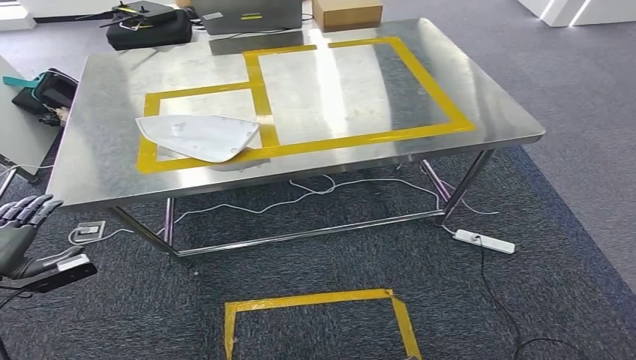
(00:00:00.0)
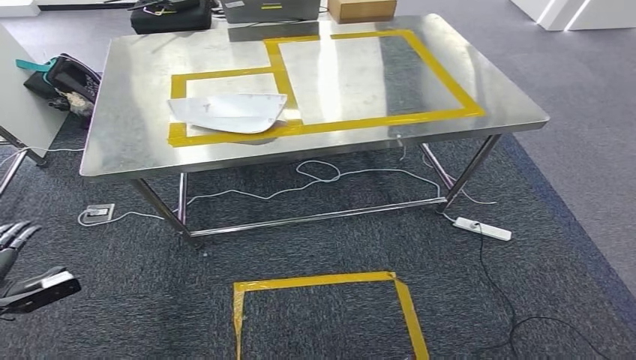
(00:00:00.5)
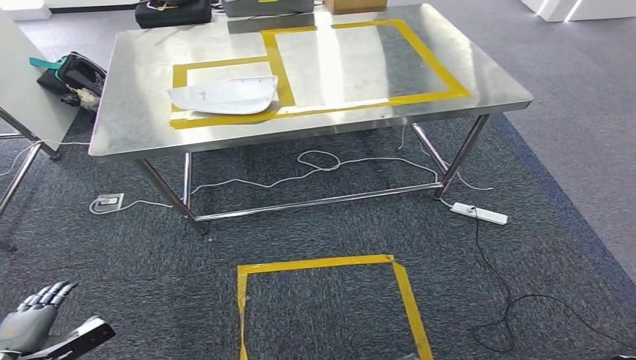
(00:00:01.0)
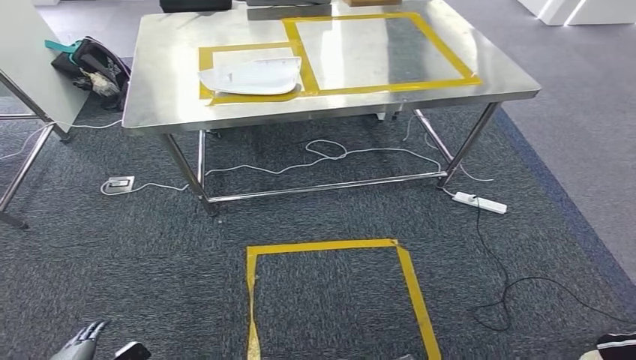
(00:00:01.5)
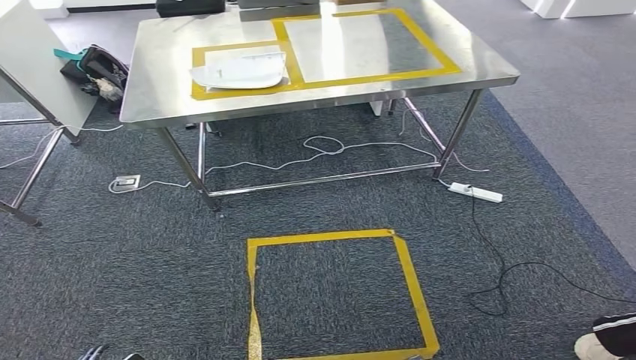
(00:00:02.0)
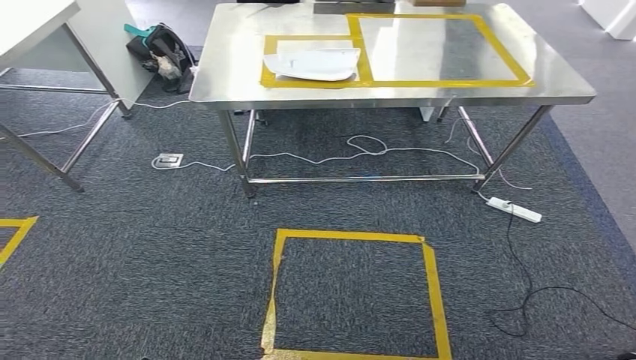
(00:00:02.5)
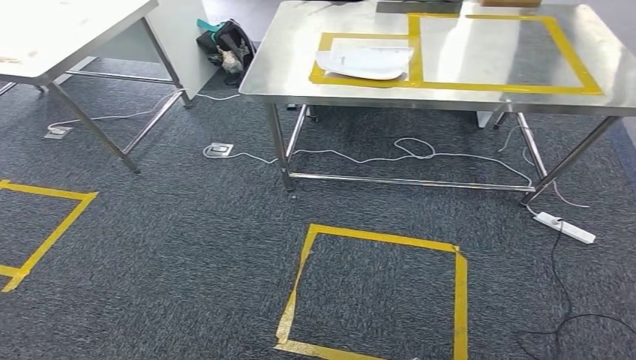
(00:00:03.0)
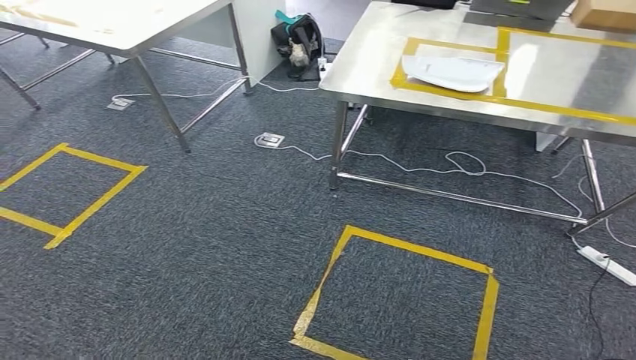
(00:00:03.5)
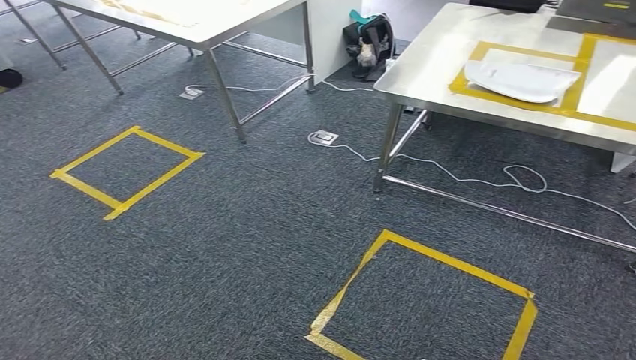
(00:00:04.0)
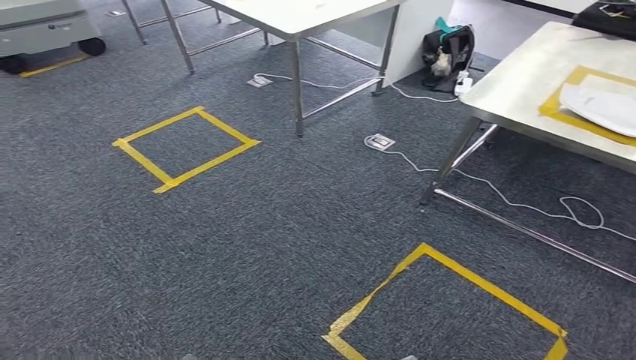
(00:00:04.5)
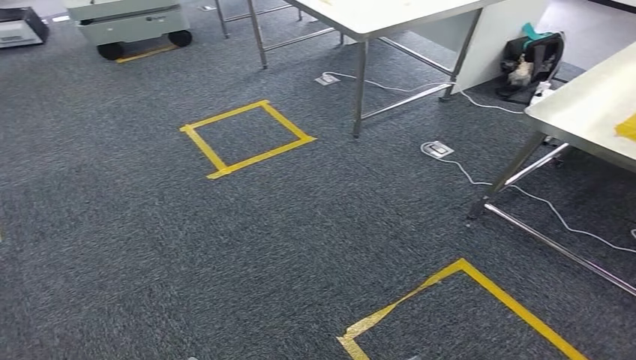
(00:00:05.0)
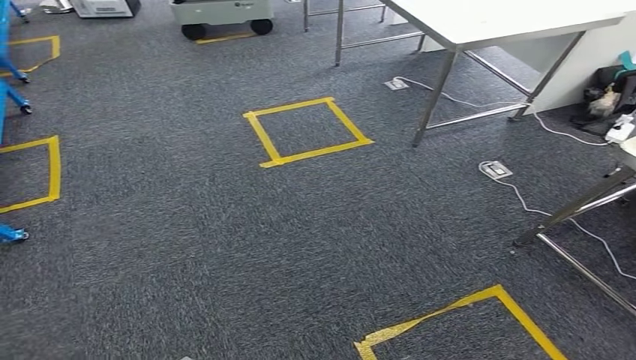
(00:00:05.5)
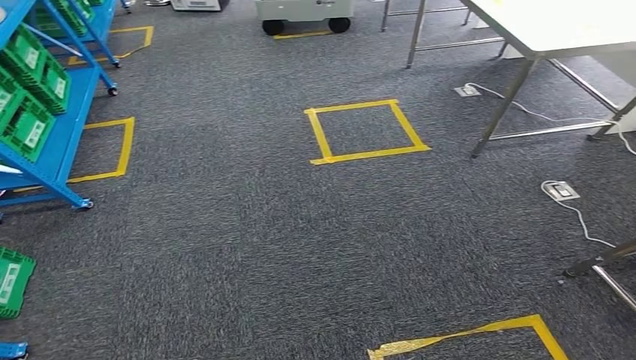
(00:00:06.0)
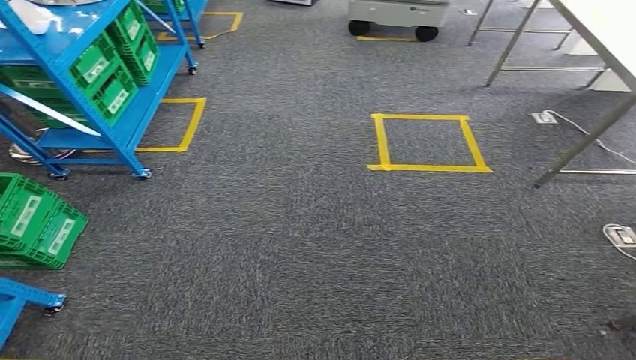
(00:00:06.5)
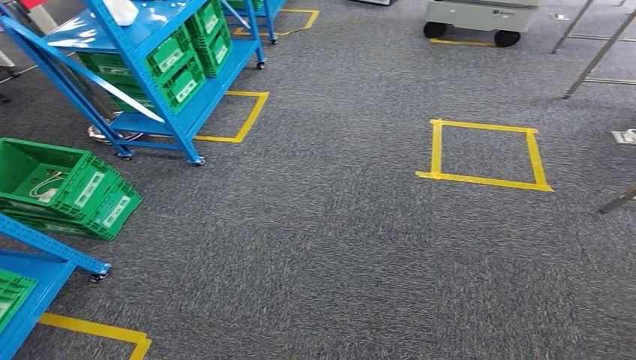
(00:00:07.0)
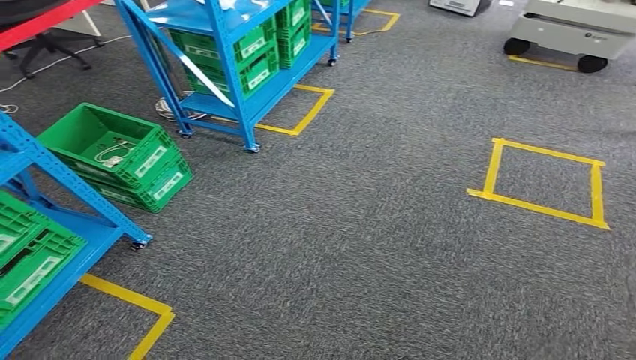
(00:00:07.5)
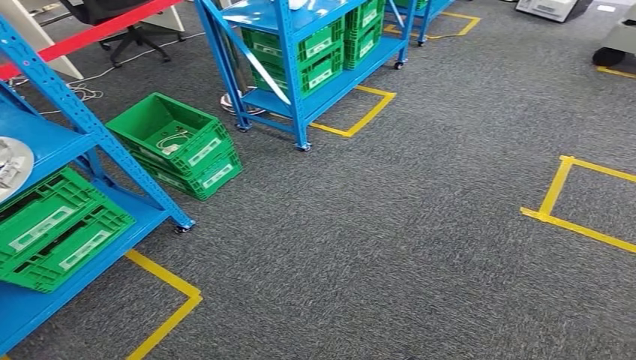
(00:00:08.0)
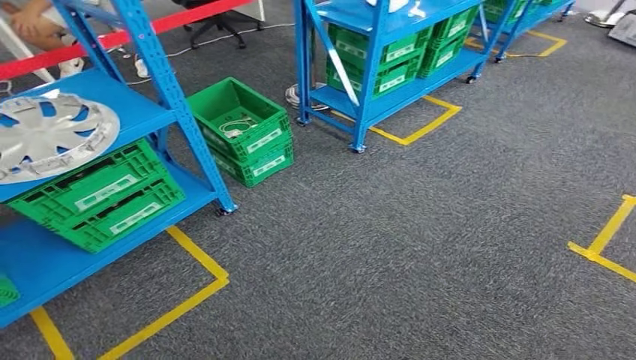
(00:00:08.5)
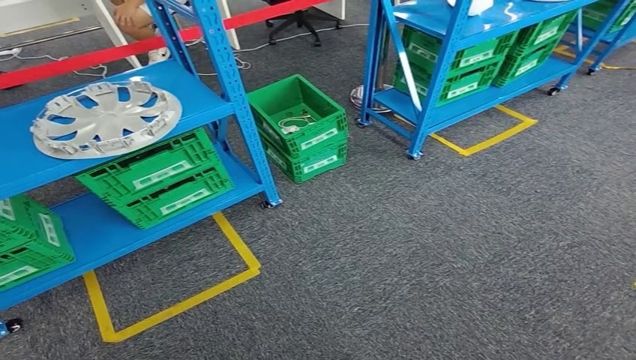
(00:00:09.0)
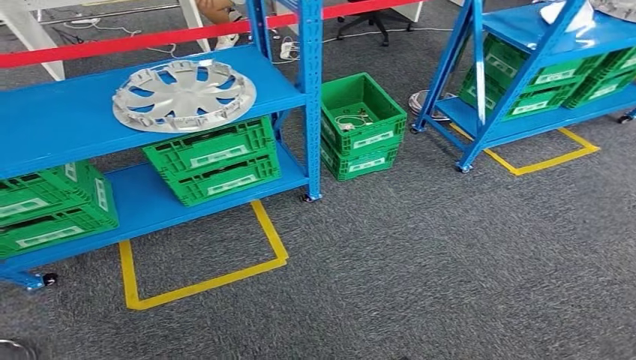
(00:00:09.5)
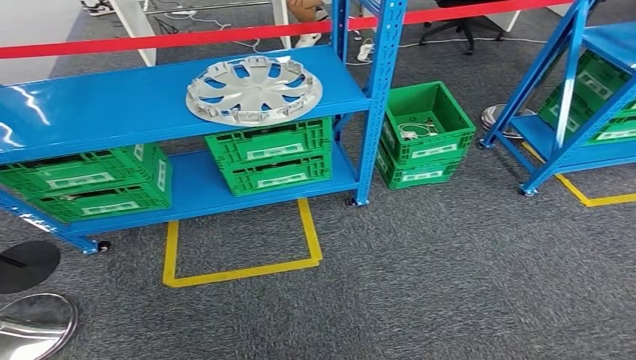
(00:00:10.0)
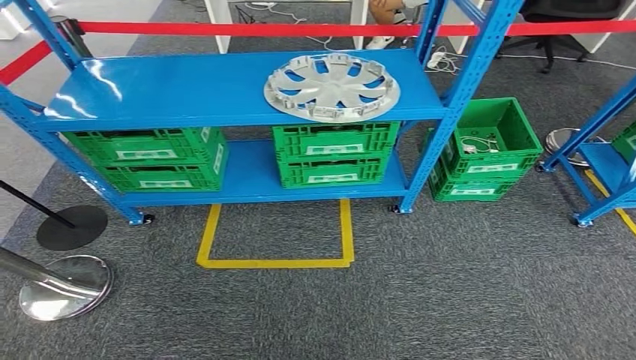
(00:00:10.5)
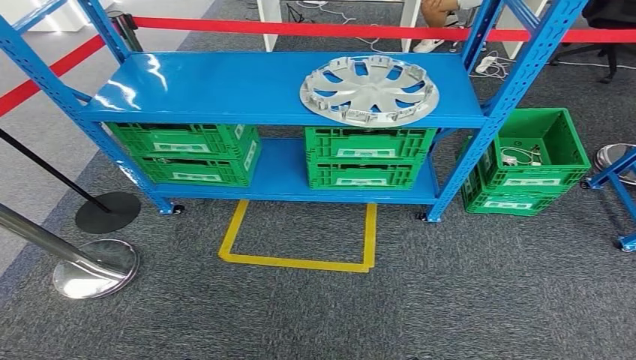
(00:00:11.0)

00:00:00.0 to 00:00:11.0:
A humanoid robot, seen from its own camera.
Step, 00:00:00.0 to 00:00:11.0: Return to the initial position at the workbench.

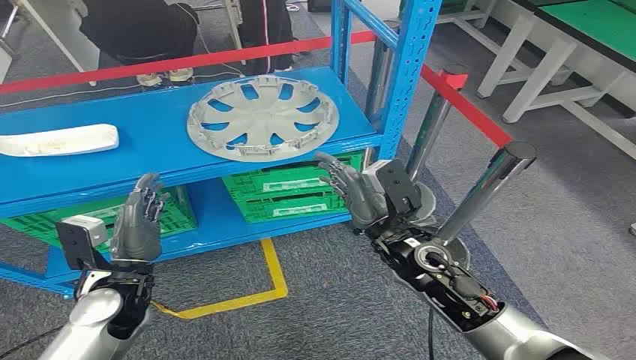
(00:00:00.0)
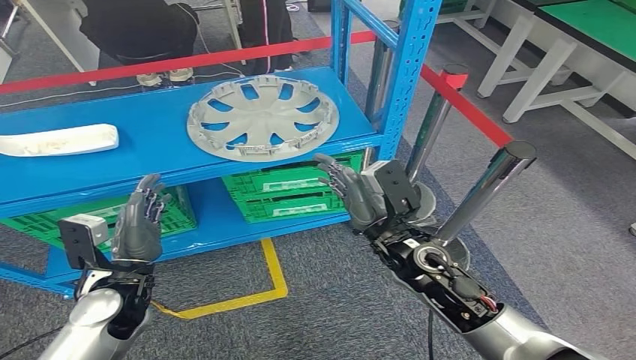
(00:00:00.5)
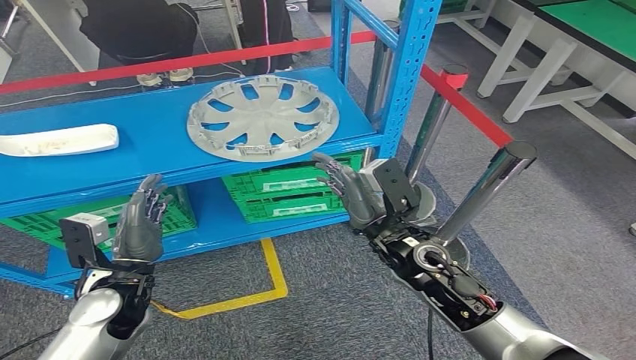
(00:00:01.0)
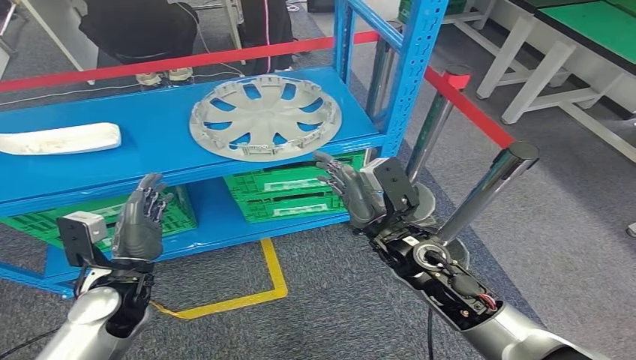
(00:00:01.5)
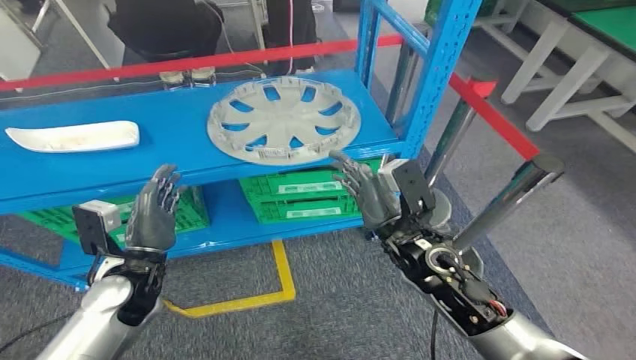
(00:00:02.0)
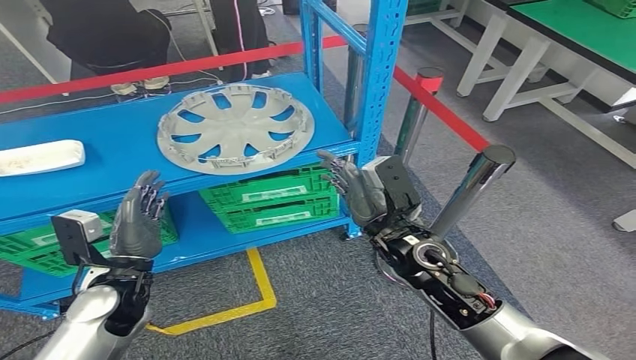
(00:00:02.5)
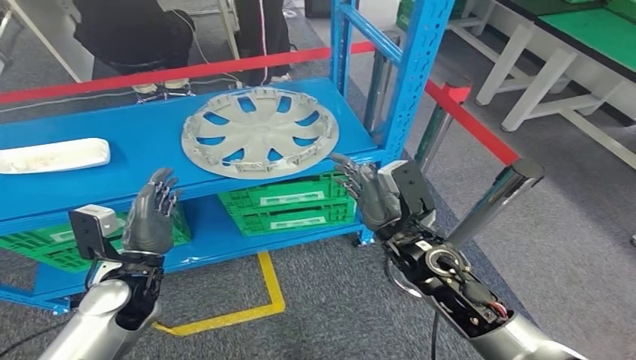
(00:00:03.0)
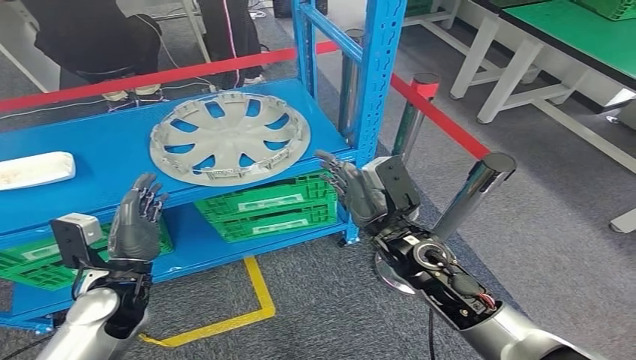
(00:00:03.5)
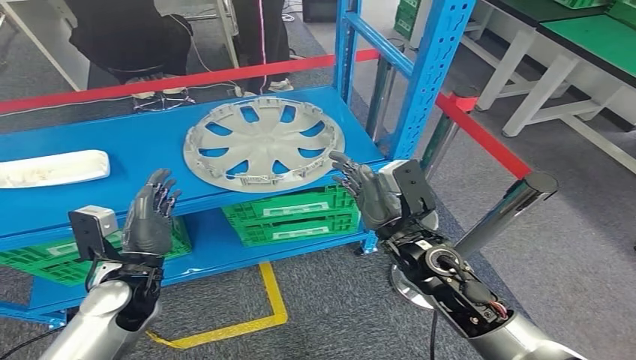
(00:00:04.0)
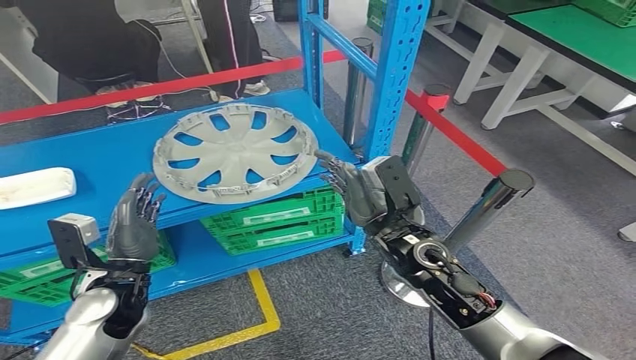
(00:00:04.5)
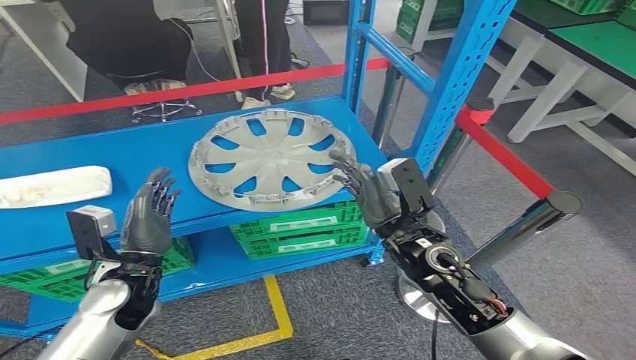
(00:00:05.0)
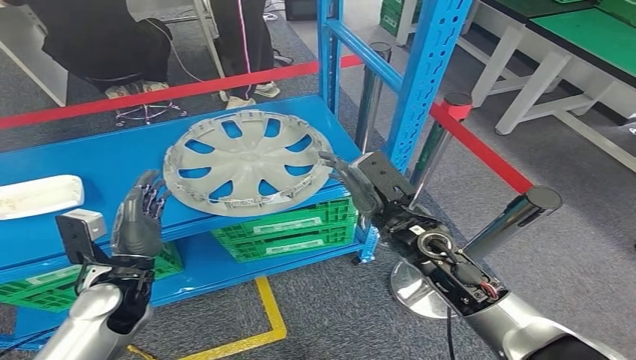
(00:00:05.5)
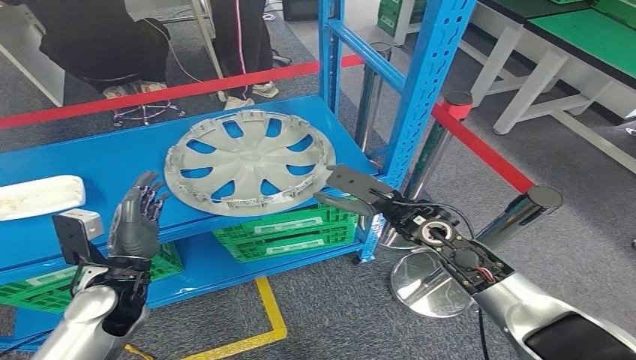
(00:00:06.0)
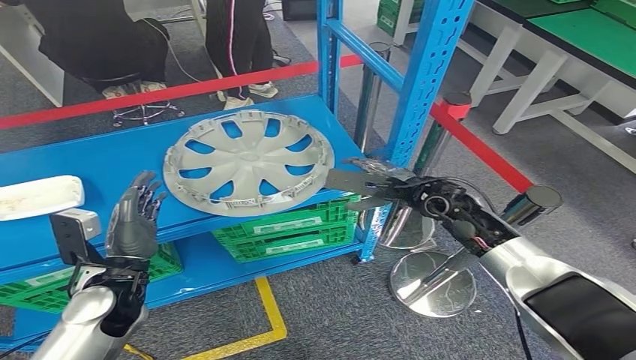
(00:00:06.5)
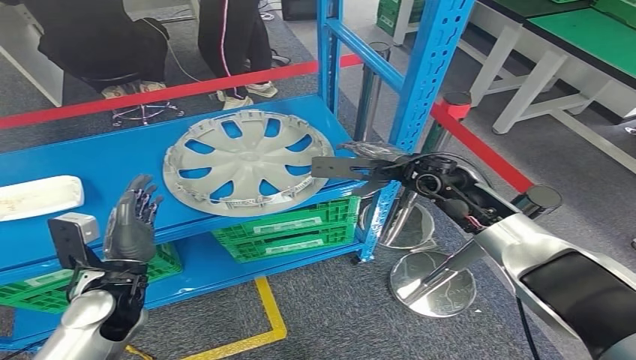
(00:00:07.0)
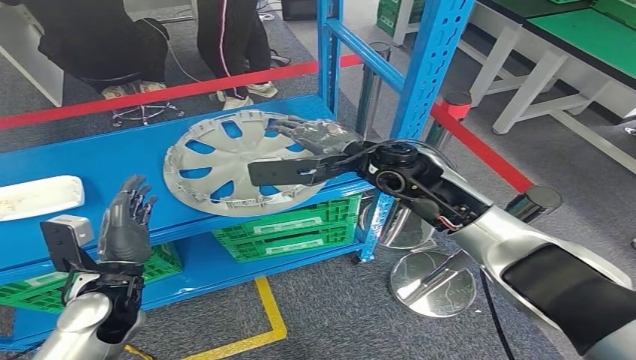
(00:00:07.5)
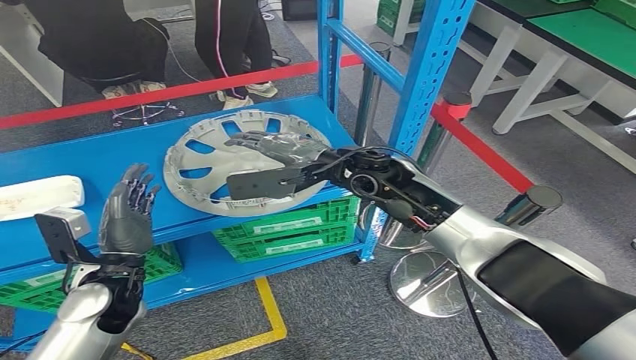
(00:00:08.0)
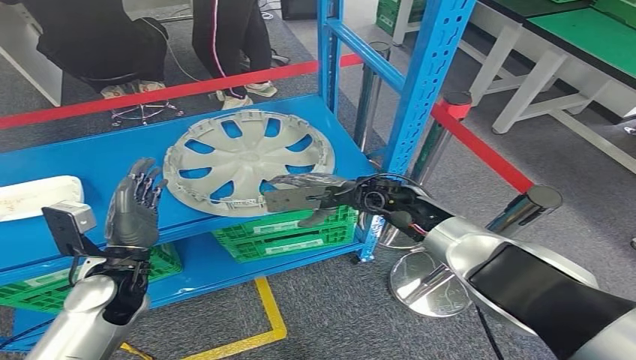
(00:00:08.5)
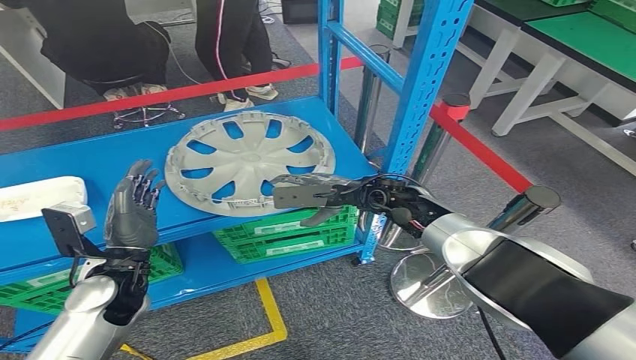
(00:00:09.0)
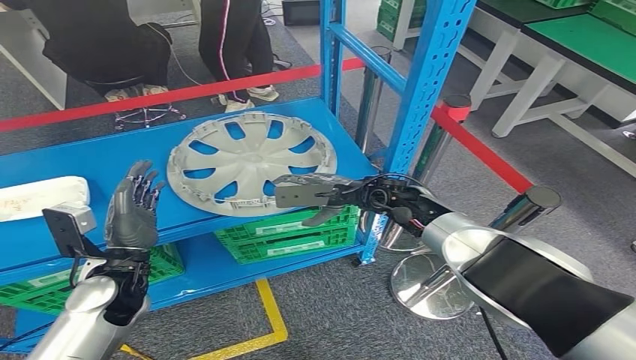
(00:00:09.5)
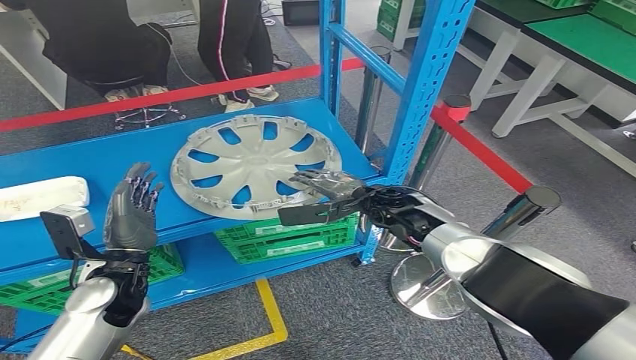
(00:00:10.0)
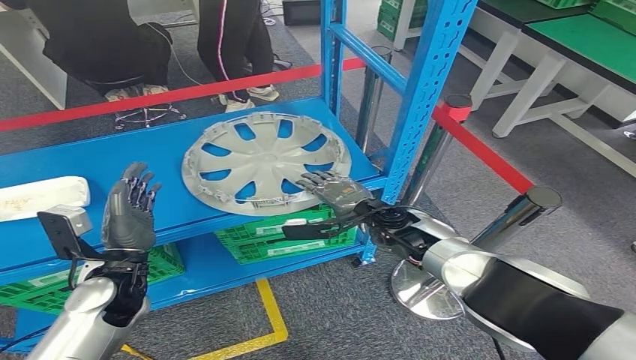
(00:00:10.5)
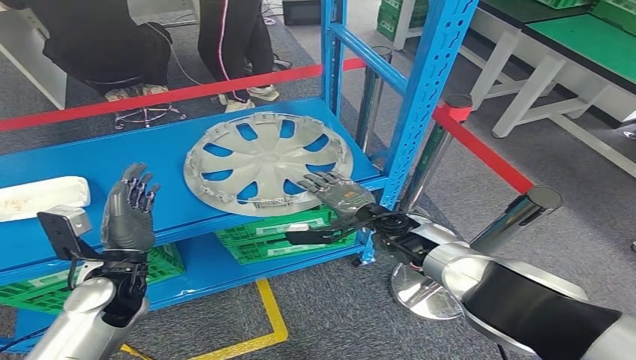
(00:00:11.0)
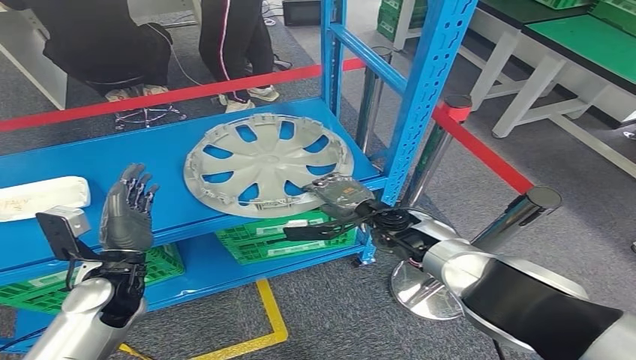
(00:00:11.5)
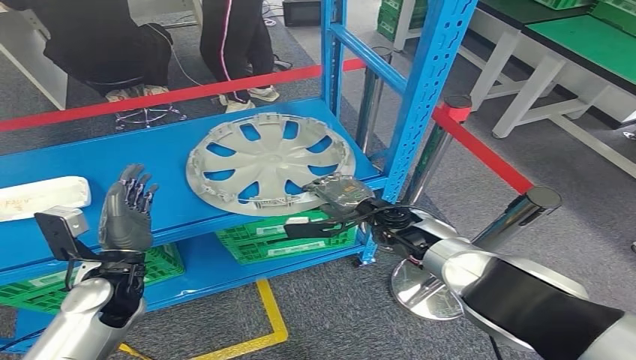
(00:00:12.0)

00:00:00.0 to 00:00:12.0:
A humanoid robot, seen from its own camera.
00:00:06.0 to 00:00:08.0: The right hand goes roughly 15 cm upward, to the left and forward.
